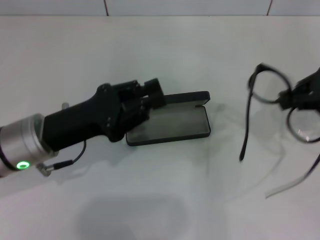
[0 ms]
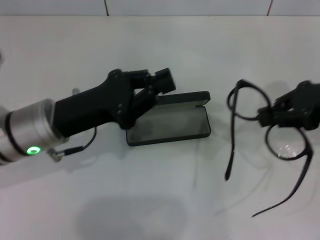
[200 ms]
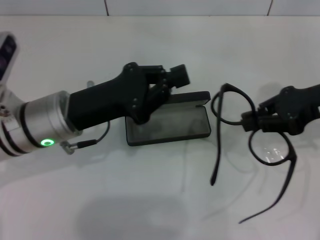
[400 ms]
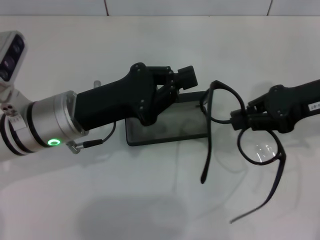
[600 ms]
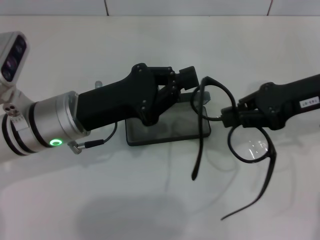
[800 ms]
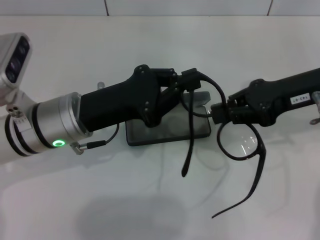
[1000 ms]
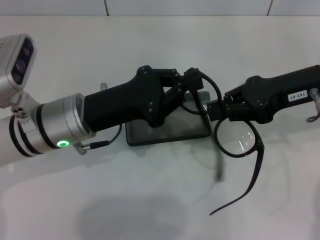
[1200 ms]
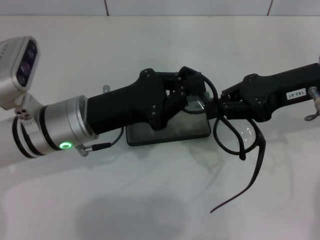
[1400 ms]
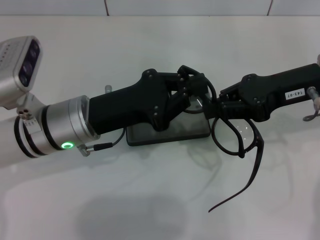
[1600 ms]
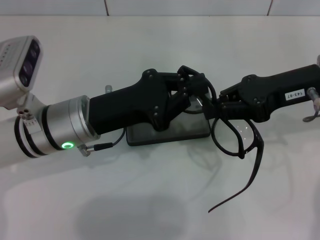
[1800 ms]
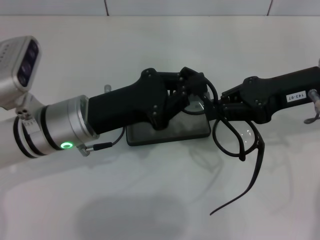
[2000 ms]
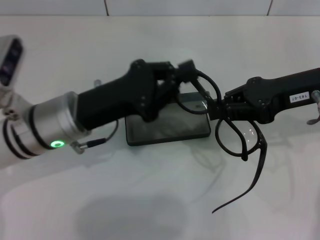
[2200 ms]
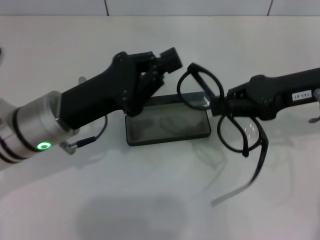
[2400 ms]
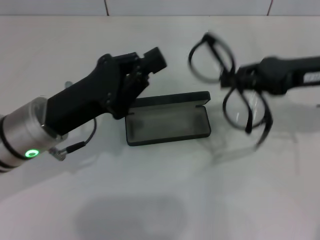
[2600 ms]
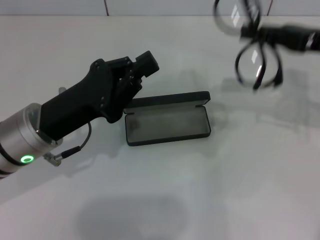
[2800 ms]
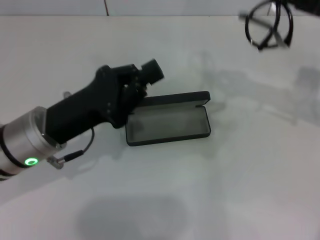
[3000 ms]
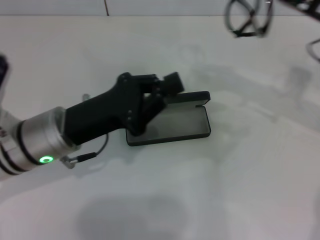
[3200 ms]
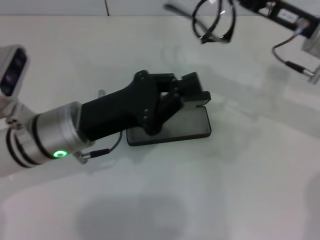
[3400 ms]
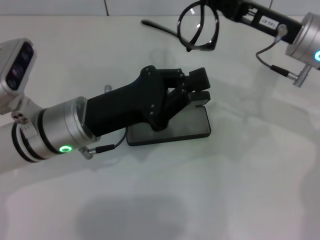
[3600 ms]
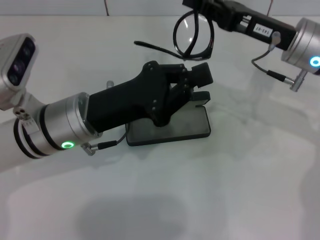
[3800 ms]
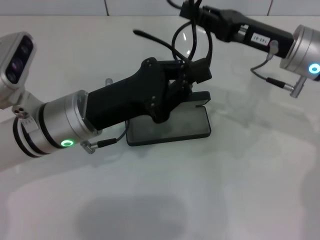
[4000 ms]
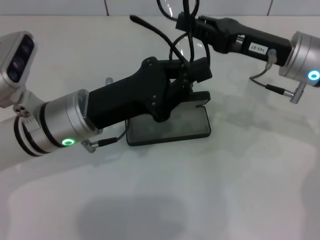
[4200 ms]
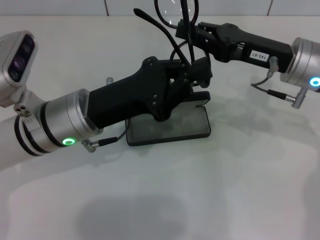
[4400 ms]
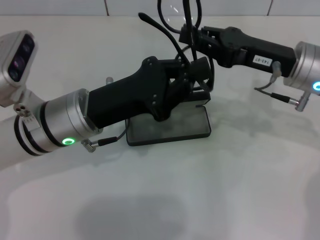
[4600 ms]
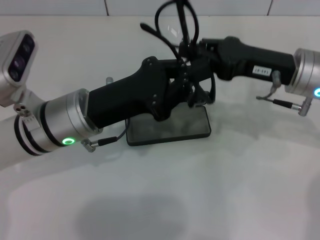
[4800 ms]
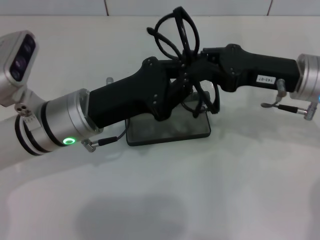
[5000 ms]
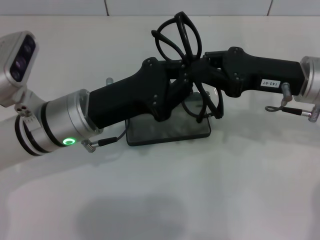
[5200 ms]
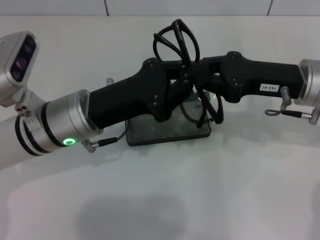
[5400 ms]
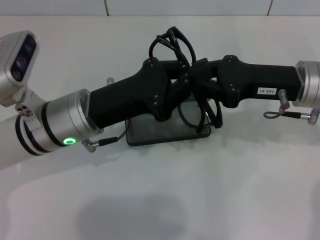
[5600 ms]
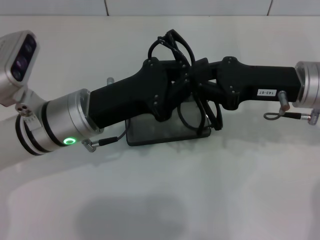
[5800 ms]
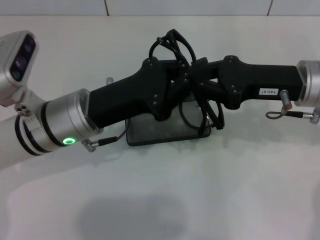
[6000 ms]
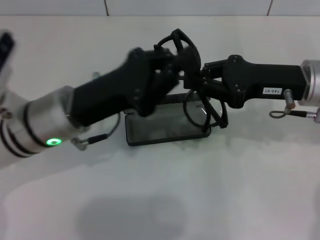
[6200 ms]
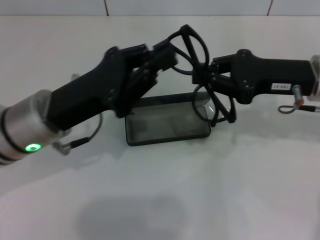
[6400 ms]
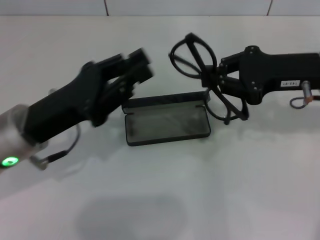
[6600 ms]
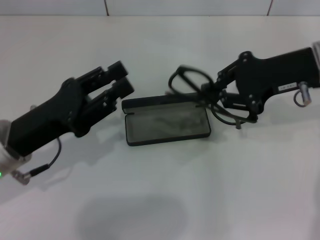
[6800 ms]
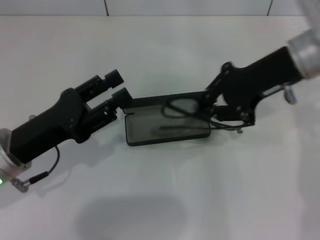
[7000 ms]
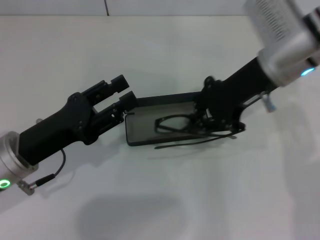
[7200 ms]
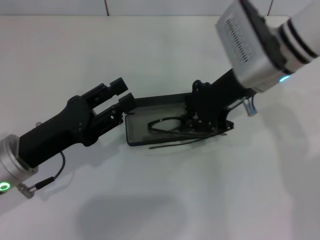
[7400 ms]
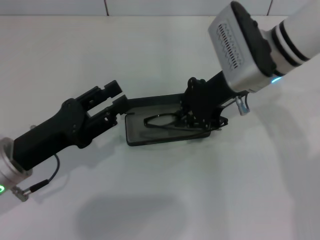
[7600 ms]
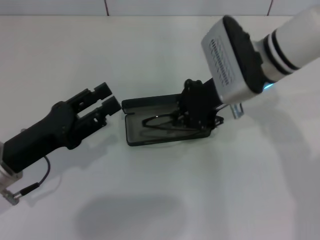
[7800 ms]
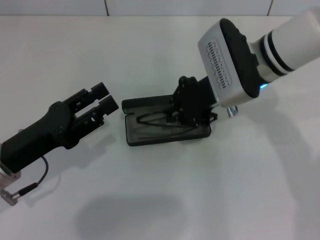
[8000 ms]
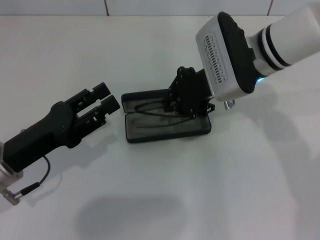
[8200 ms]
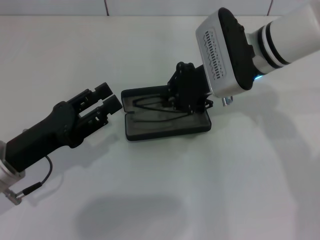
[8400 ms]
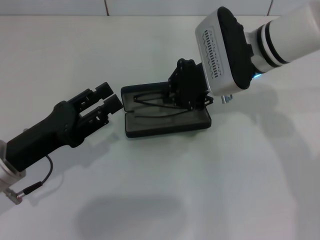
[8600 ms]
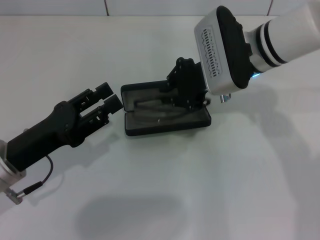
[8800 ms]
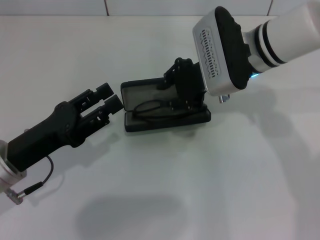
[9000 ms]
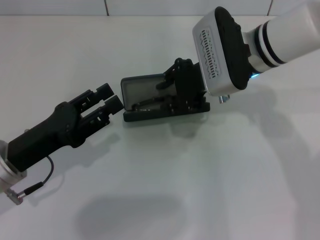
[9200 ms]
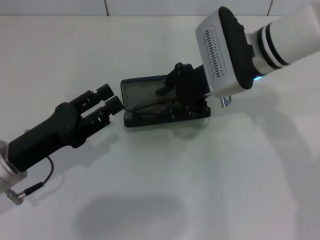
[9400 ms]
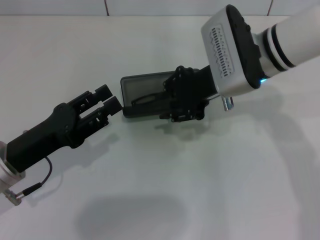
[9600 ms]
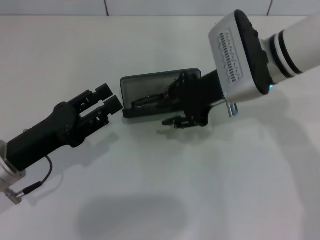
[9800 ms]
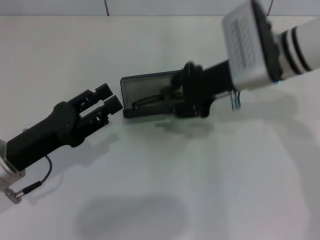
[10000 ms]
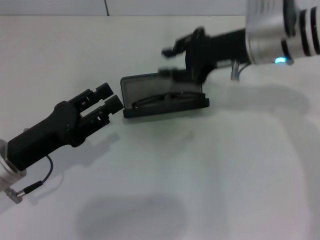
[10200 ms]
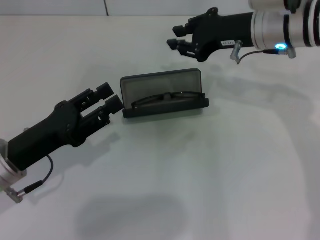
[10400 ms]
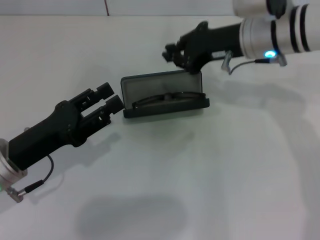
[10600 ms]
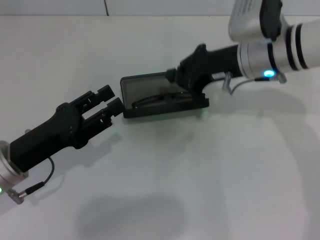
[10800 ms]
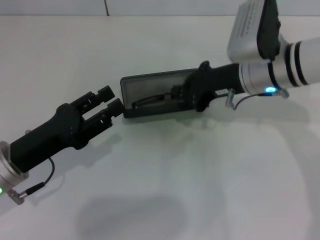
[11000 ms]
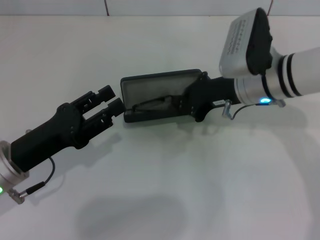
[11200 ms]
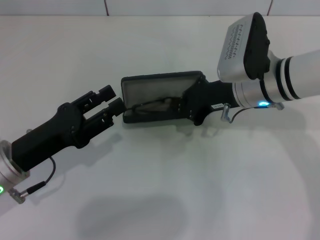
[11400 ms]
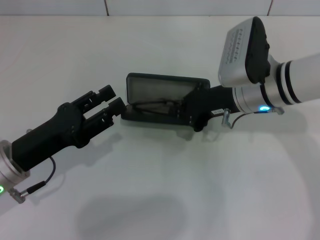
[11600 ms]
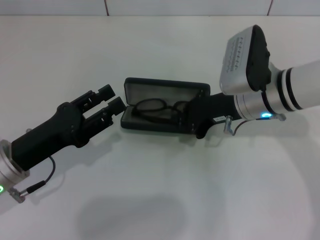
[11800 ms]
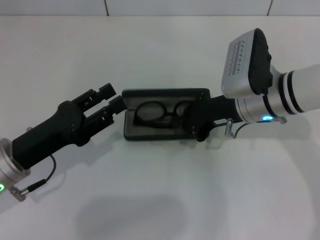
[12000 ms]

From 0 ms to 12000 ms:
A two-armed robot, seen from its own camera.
Step, from 0 ms to 6000 ms: Fold the frame with your left hand.
Step, from 6200 ms to 9800 ms: Put the glasses into the case with your right hand.
From 0 ms to 1600 ms: The right gripper moves to the left, roughly 5 cm, while the left gripper moves some 5 cm, and closes up.
From 1600 ms to 3000 ms: The right gripper moves to the right, approximately 5 cm.
From 3000 ms to 4400 ms: The left gripper ends up roughly 5 cm from where it was. Meanwhile the right gripper moves to the left, roughly 10 cm.
From 4400 ms to 6000 ms: The grippers make only small movements.
From 6000 ms to 7600 ms: The left gripper moves to the left and backward, some 10 cm, and opens its fingers. The right gripper heads to the left, covering some 10 cm.
From 7600 ms to 9000 ms: The grippers stay close to where they were, moving slightly.
From 9000 ms to 10400 ms: The right gripper is displaced to the right by approximately 5 cm.
From 10400 ms to 12000 ms: The right gripper travels downward by roughly 10 cm, and closes its fingers.

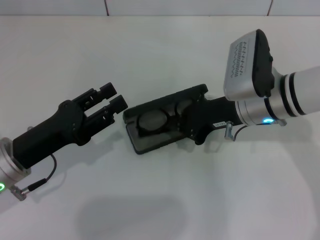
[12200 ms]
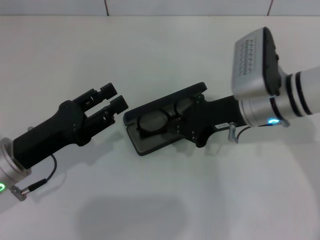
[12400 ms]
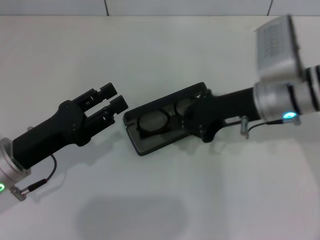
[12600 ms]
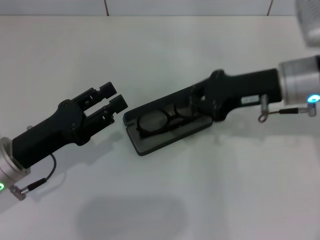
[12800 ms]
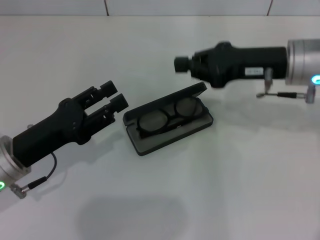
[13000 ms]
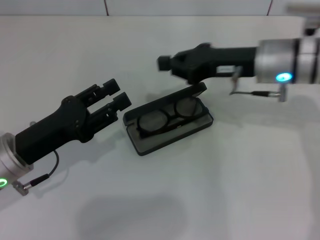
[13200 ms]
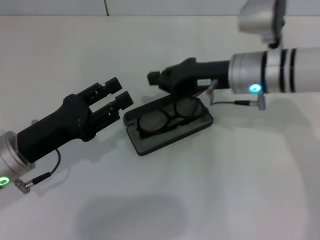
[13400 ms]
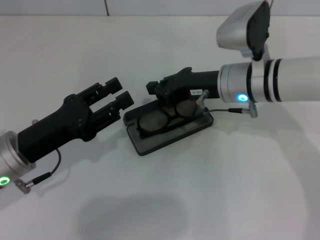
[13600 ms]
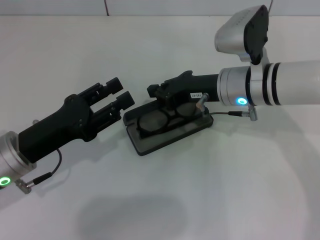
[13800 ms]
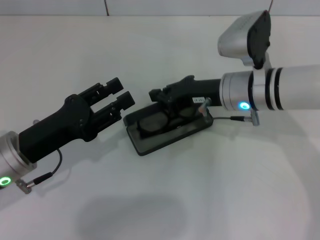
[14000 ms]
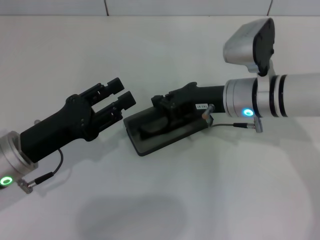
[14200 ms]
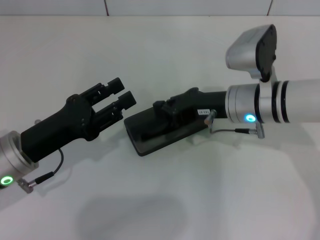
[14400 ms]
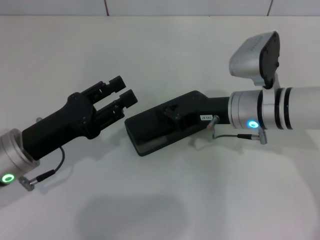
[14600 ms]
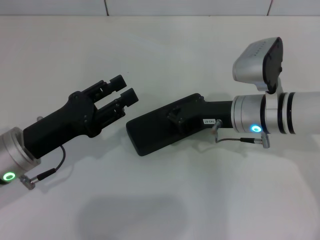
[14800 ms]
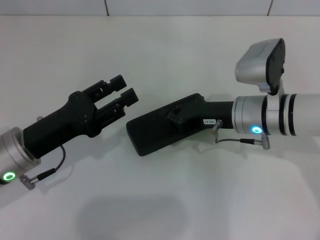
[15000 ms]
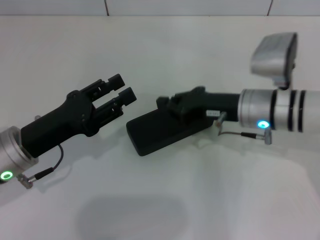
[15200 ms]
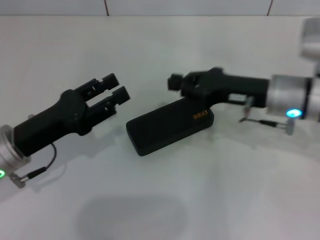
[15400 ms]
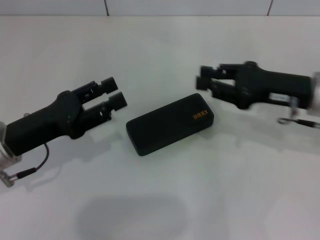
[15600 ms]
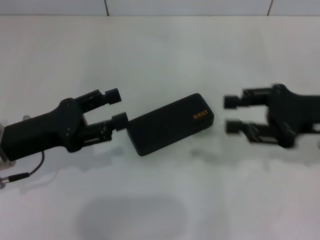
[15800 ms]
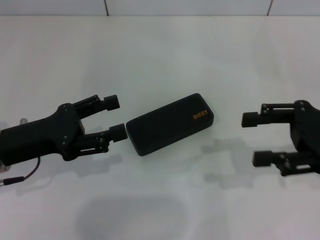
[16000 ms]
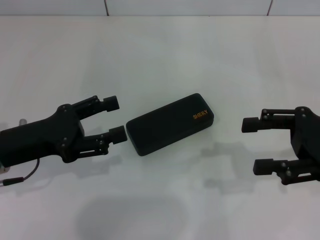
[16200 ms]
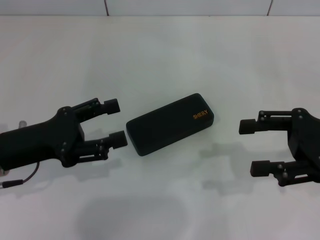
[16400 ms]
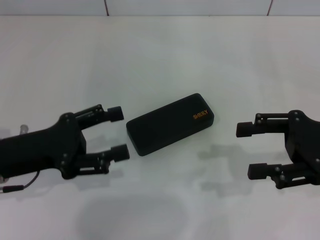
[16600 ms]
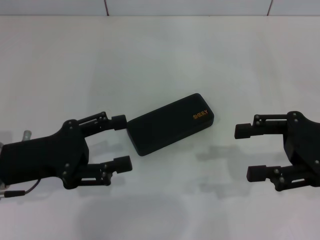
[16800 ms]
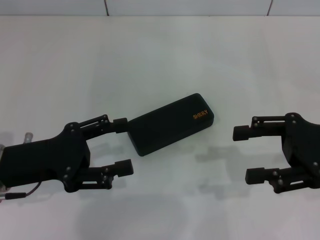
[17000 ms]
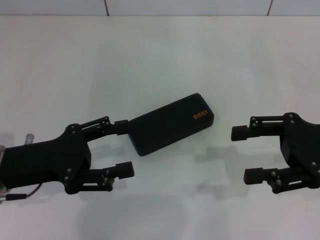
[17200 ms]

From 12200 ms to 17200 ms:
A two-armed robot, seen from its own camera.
Step, from 12200 ms to 14800 ms: Close the glasses case with your right hand.
From 12200 ms to 13800 ms: The right gripper reaches some 5 cm to the right, then returns.
From 13800 ms to 15600 ms: The right gripper goes about 10 cm to the right.
From 15600 ms to 17200 ms: The right gripper heads backward, covering approximately 5 cm, and opens up.

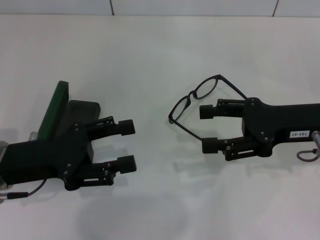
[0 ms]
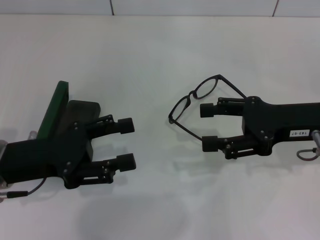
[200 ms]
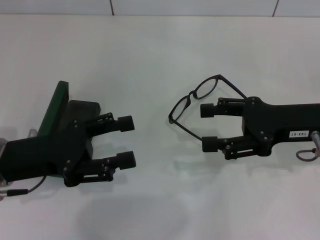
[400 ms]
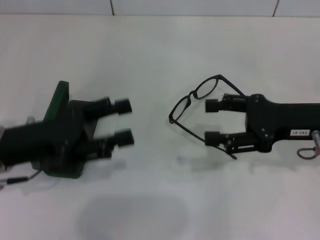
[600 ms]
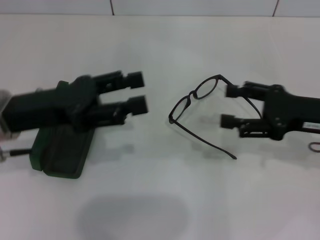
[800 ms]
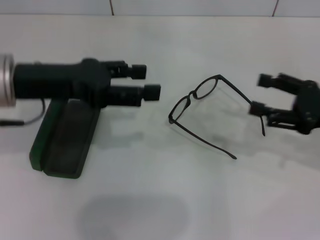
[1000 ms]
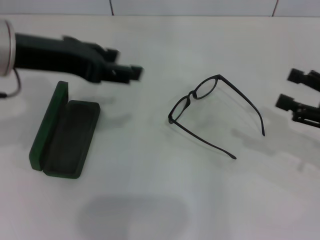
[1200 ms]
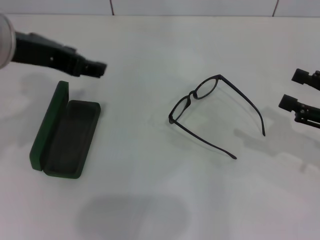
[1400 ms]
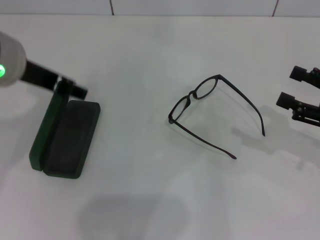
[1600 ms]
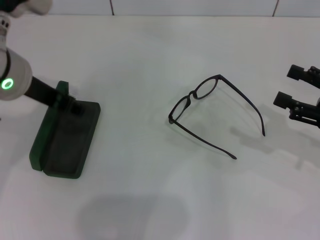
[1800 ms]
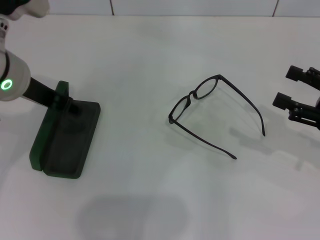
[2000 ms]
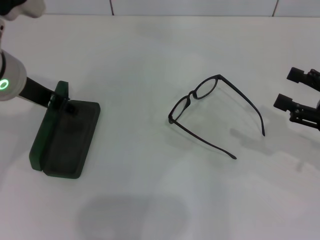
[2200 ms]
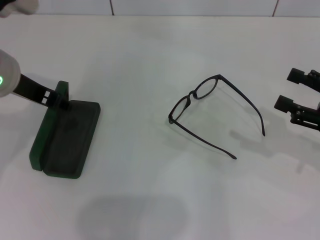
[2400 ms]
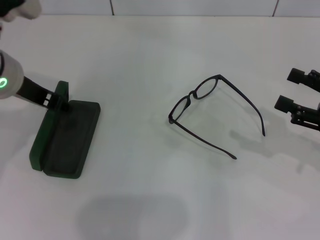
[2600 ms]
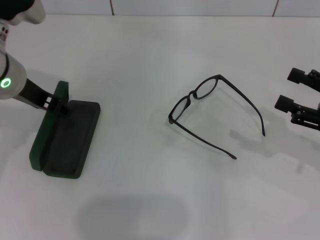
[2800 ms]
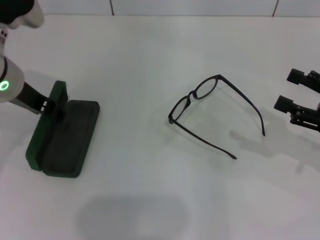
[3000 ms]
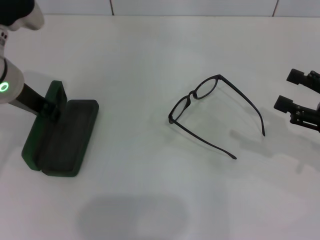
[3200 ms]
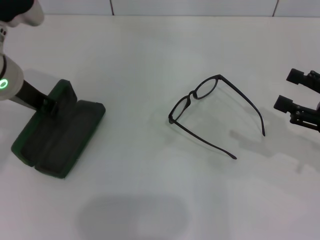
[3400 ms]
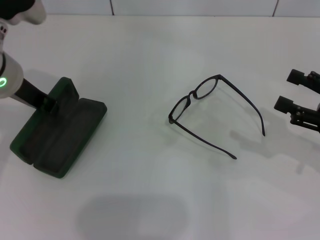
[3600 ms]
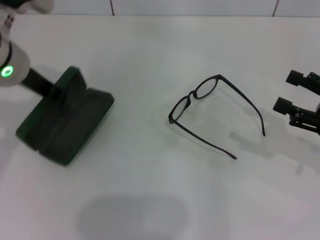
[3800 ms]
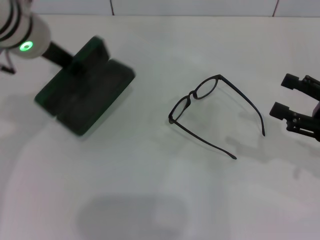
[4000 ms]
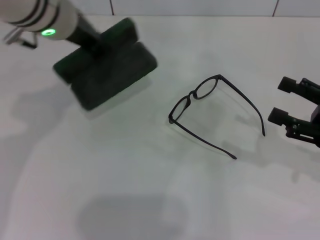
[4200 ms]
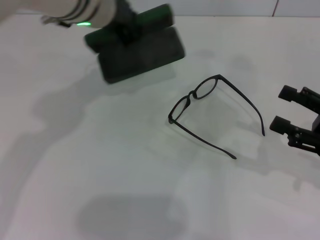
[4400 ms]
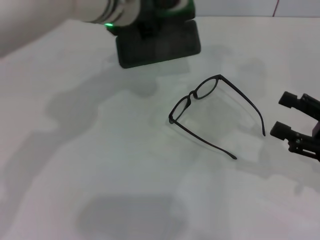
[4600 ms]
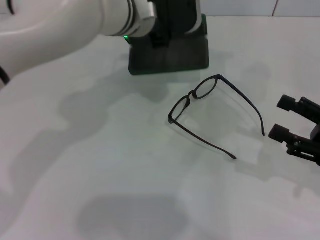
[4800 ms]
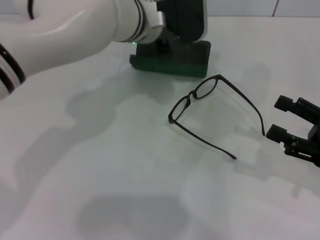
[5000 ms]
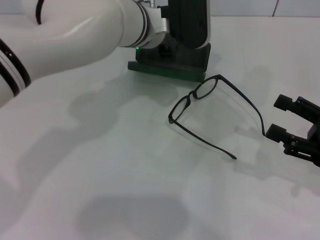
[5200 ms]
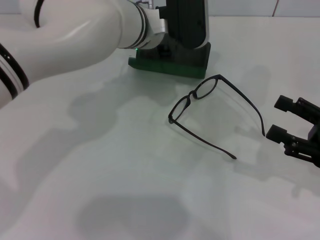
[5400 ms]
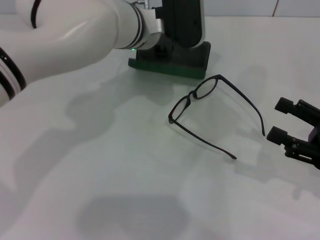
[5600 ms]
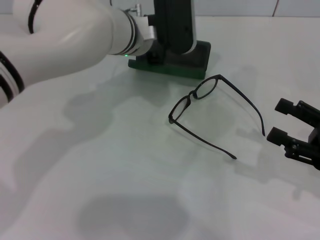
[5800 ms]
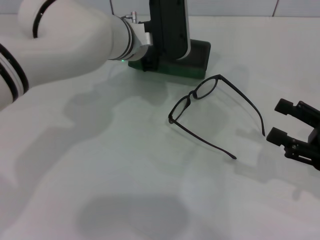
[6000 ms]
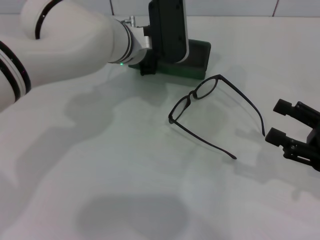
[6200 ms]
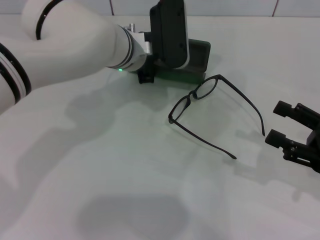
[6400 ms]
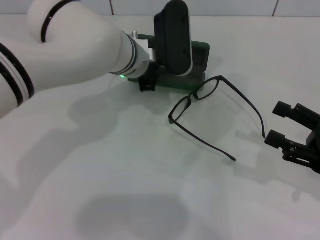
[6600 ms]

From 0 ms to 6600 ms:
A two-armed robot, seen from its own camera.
Step, from 0 ms to 3400 ms: Grab the glasses case with your left hand.
From 0 ms to 1600 ms: The left gripper goes some 15 cm upward, forward and to the right, while the right gripper heads to the right, covering approximately 10 cm.
From 1600 ms to 3200 ms: The left gripper moves downward, roughly 5 cm.
From 3200 ms to 5000 ms: The left gripper heads to the right and forward, covering roughly 20 cm, and closes up.
From 5000 ms to 6600 ms: The left gripper changes place by roughly 5 cm.
